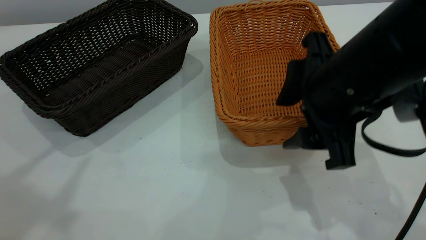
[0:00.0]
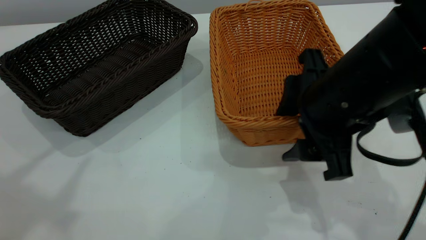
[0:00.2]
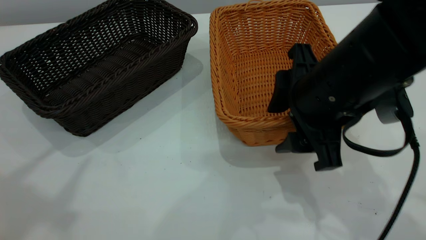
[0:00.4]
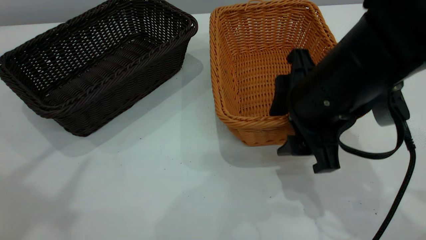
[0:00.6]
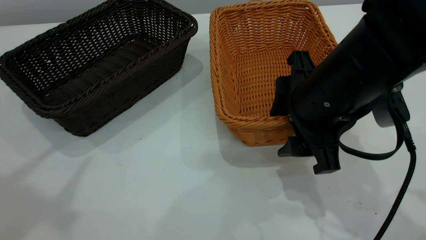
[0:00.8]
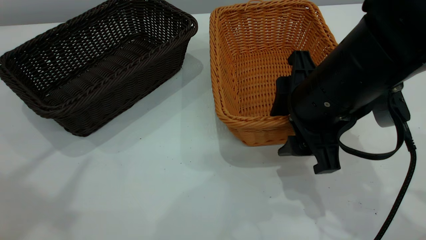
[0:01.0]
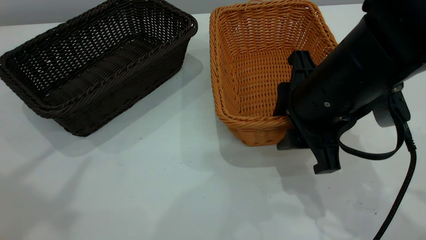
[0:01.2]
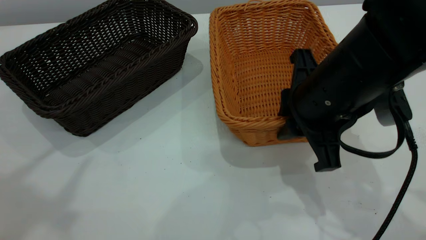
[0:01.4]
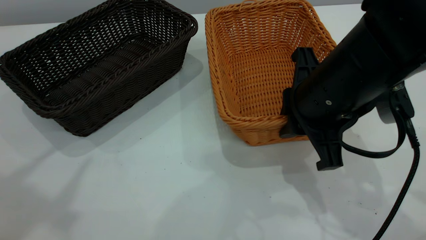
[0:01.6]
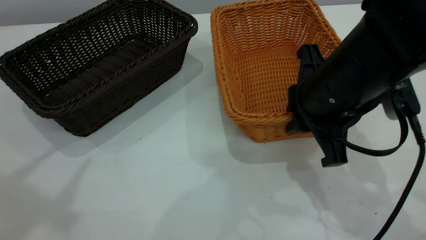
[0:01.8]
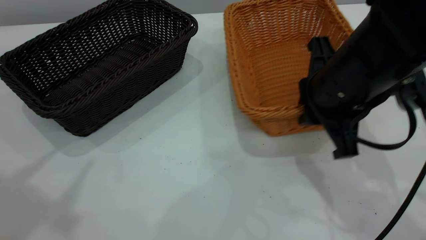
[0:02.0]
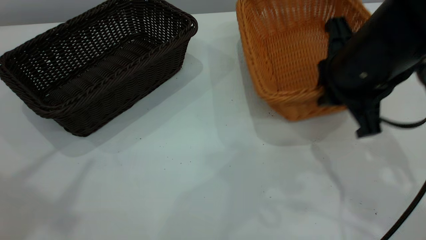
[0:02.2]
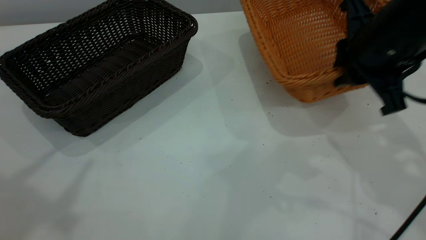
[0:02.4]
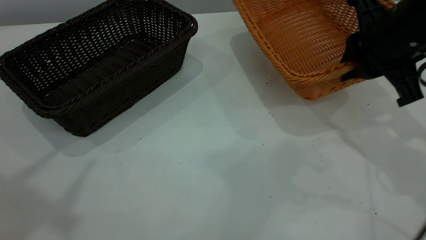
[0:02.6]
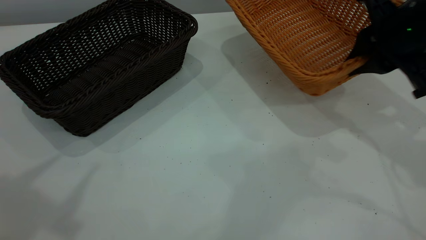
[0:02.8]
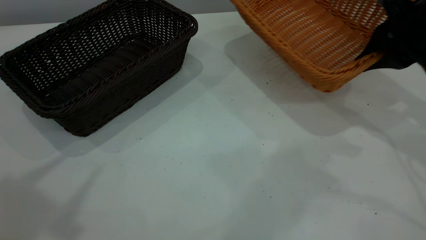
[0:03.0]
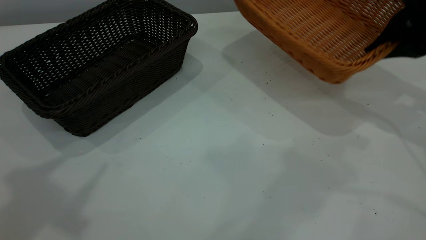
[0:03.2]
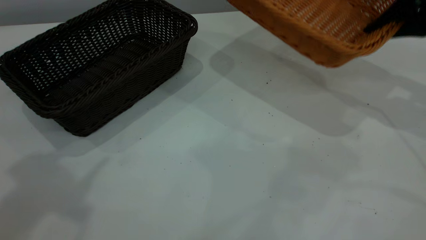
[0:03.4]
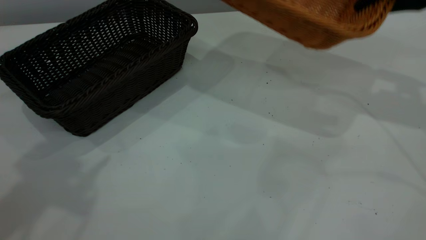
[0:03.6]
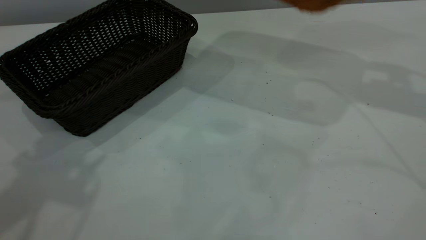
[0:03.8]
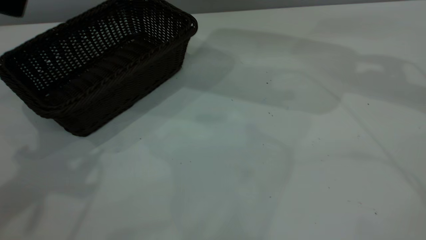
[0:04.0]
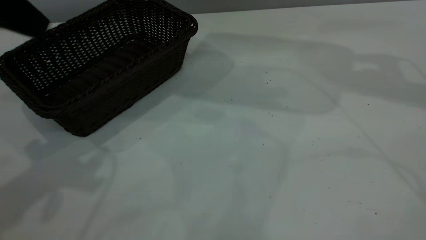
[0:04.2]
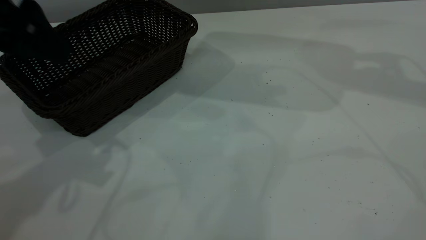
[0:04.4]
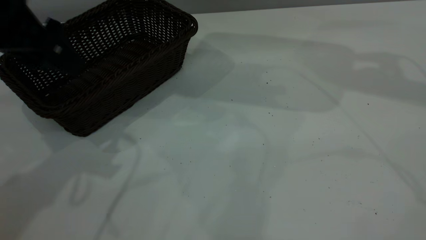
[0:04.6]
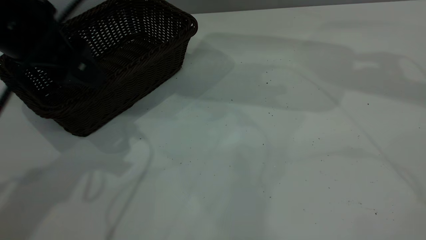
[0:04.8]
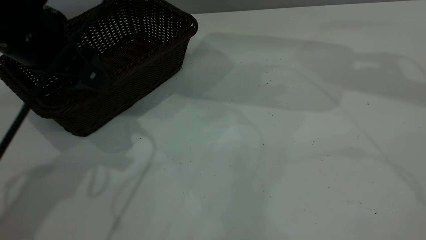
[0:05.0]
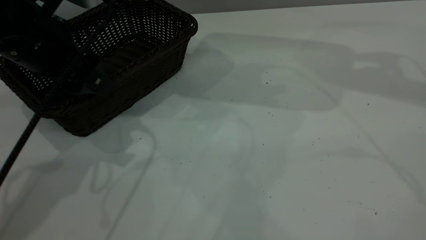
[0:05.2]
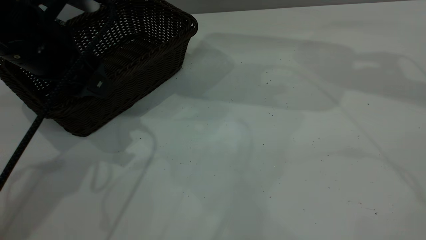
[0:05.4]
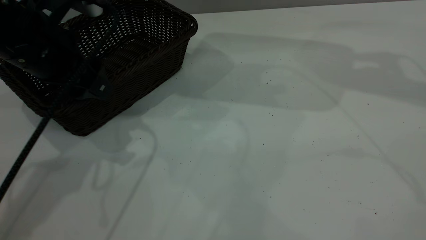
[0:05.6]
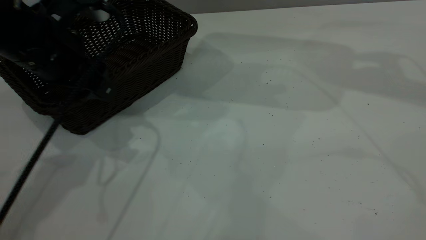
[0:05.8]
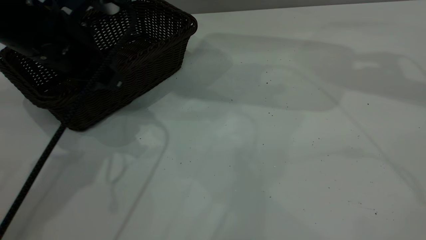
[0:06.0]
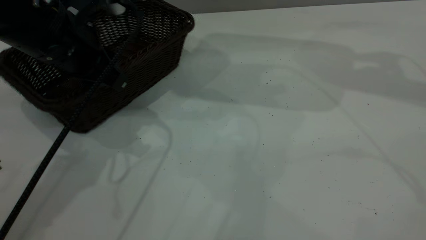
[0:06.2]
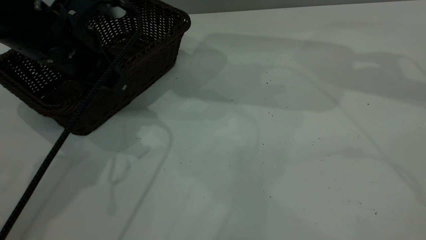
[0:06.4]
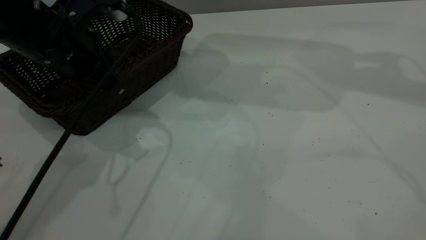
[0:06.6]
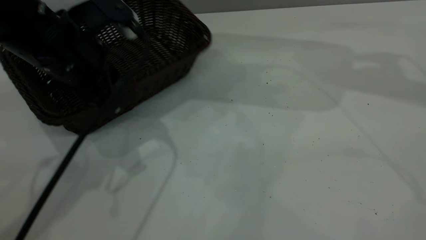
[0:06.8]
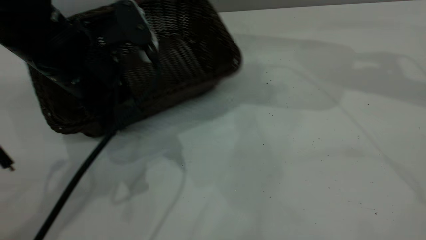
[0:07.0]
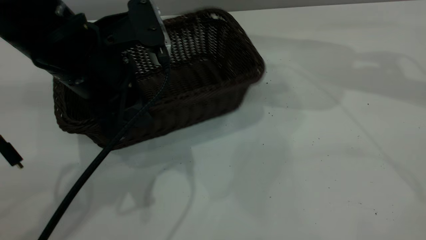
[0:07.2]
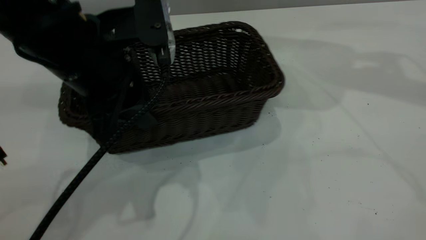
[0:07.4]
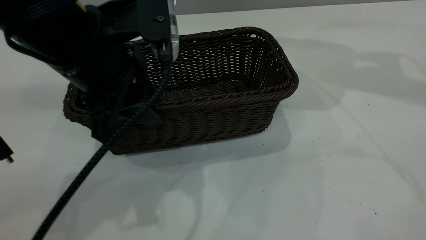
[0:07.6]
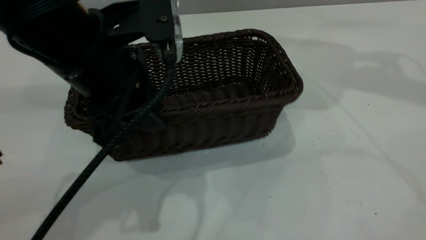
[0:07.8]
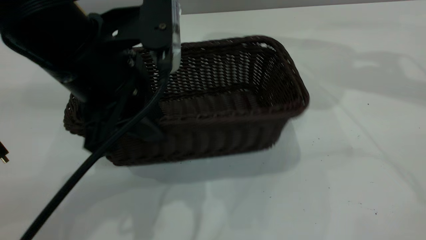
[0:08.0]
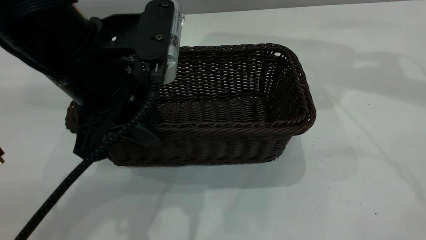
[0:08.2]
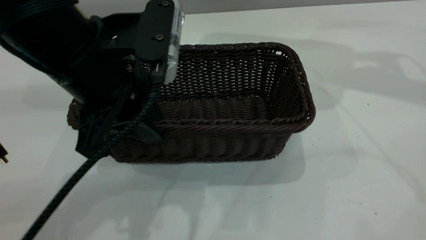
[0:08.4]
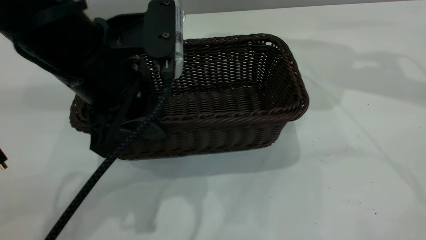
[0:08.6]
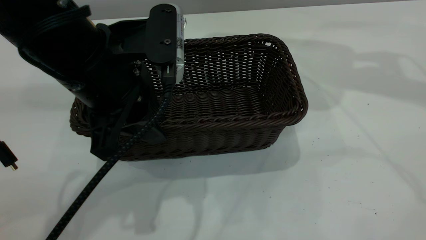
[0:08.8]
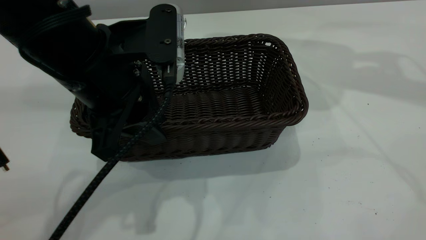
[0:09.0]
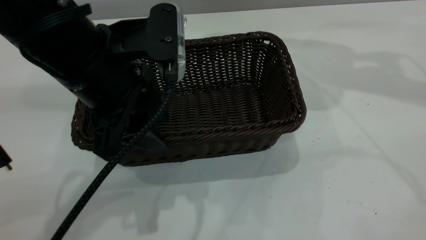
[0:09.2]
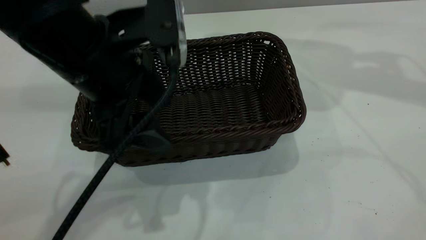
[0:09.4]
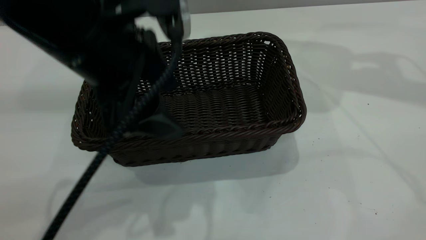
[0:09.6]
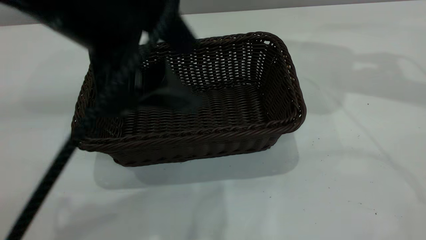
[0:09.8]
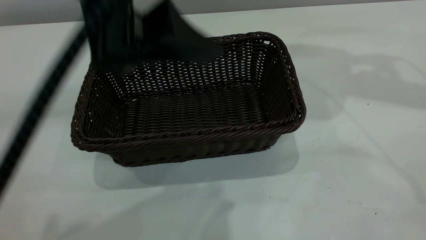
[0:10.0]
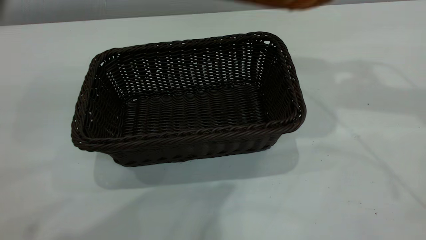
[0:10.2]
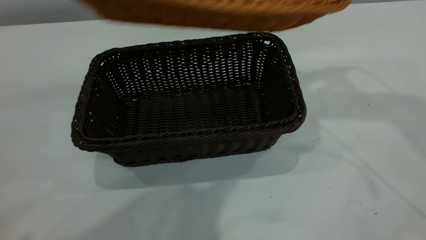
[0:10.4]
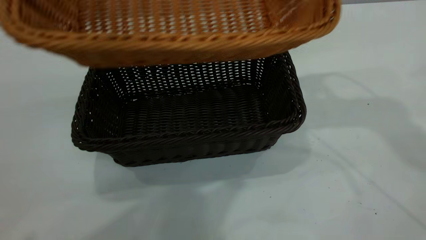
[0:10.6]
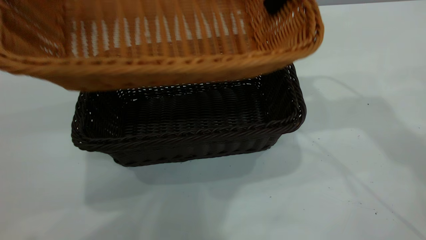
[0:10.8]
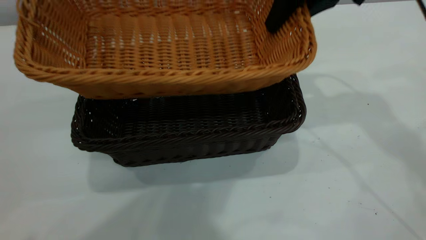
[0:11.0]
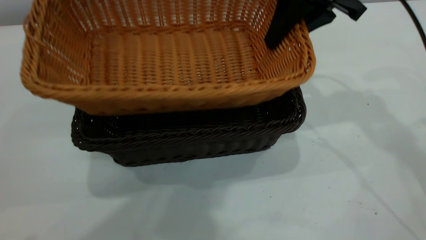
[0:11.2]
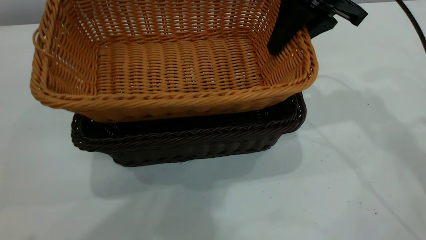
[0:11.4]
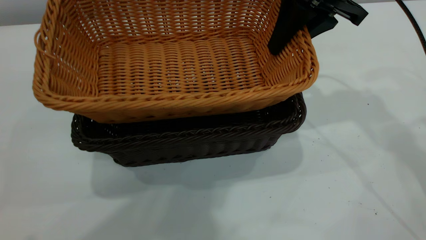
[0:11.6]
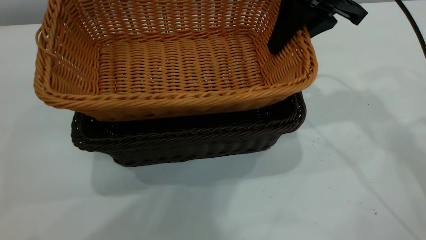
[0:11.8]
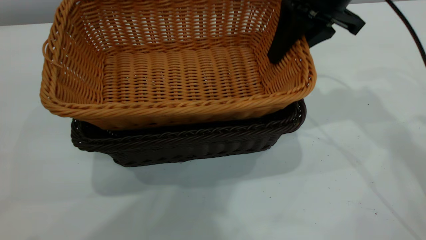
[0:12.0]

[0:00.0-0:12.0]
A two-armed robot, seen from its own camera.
Task of the whole recording: the left gripper grasp the black basket and place it in the center of the table, the right gripper grasp the brown basket and place it inside the black one.
Step, 0:00.0 to 0:03.0: Pick up the light basket with the right gripper.
Step, 0:03.2 to 0:10.0: Move the dark basket to the center of view.
0:00.0 to 0:01.6: The right gripper closes.
0:01.6 to 0:03.0: The right gripper is displaced to the right and forward by roughly 15 cm.
0:03.0 to 0:04.4: The right gripper moves upward and forward, some 15 cm; the left gripper is displaced downward and forward by some 20 cm.
0:04.4 to 0:06.0: The left gripper travels downward by approximately 10 cm, and closes.
0:06.0 to 0:07.6: The left gripper shifts roughly 10 cm to the right and backward.
0:07.6 to 0:09.0: The grippers make only small movements.
0:09.0 to 0:10.4: The right gripper goes about 10 cm to the left; the left gripper shifts some 20 cm upward, and opens its fingers.
0:10.4 to 0:12.0: The right gripper heads downward, covering some 10 cm.

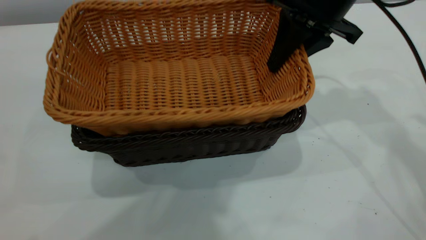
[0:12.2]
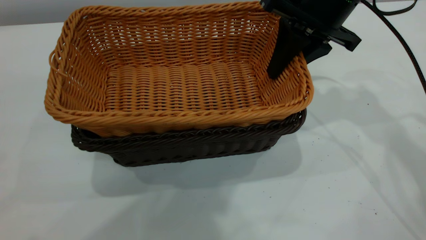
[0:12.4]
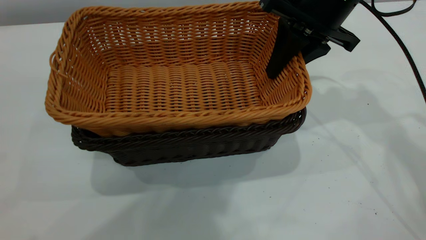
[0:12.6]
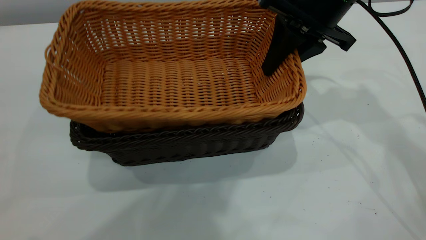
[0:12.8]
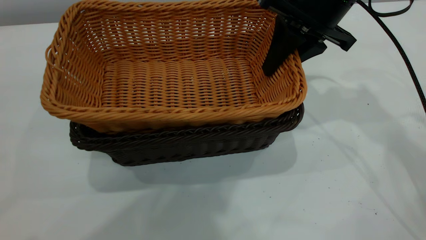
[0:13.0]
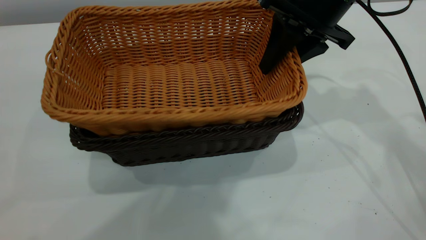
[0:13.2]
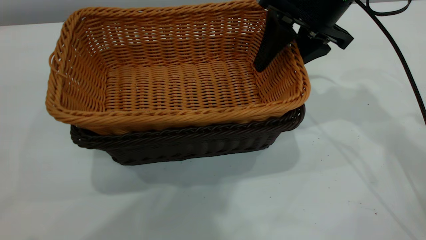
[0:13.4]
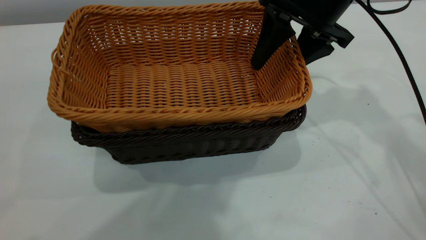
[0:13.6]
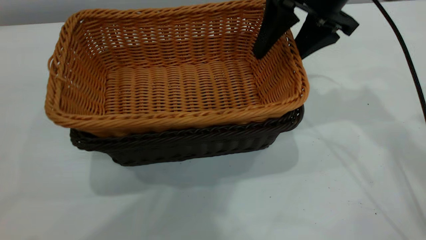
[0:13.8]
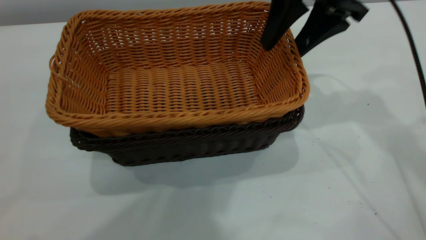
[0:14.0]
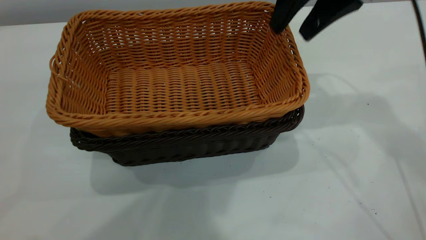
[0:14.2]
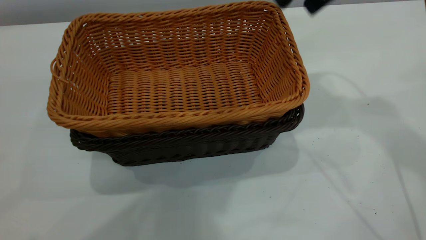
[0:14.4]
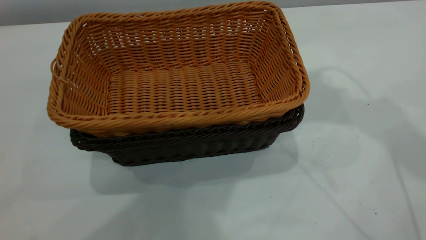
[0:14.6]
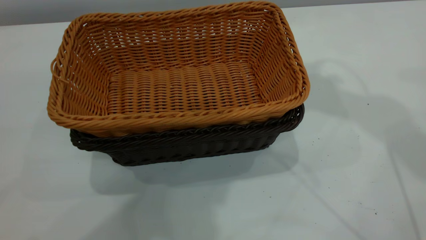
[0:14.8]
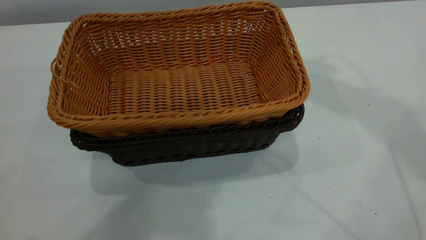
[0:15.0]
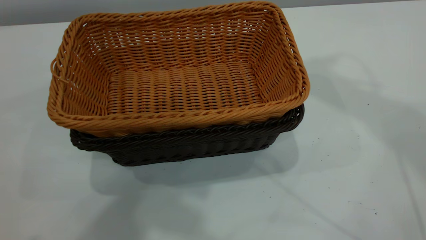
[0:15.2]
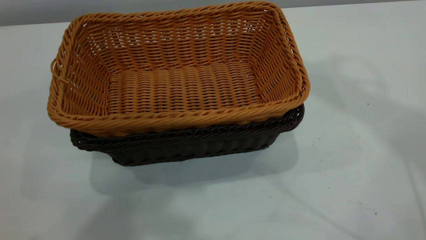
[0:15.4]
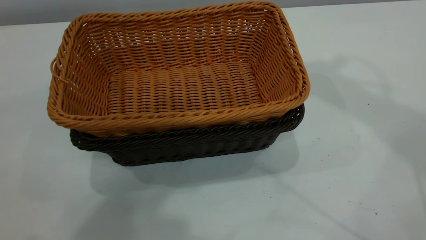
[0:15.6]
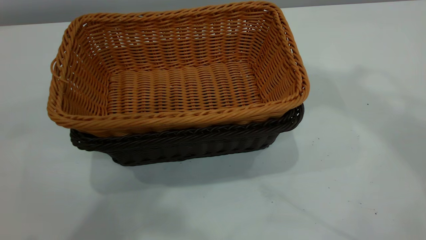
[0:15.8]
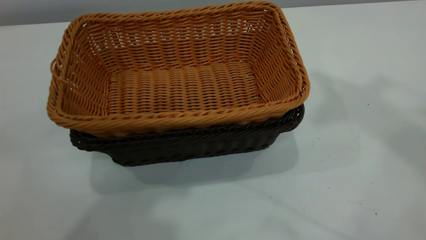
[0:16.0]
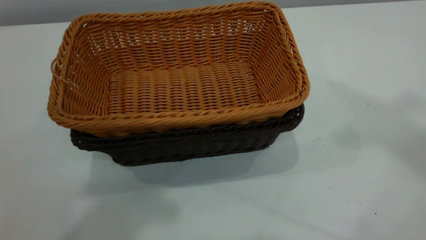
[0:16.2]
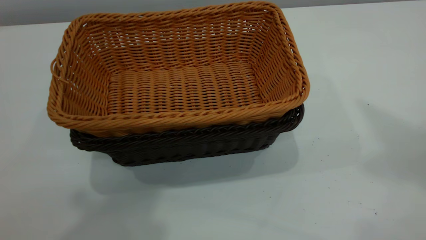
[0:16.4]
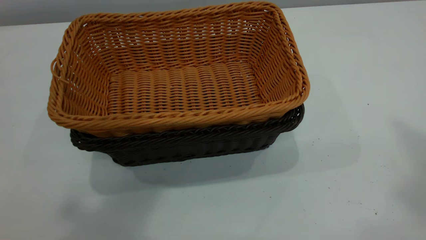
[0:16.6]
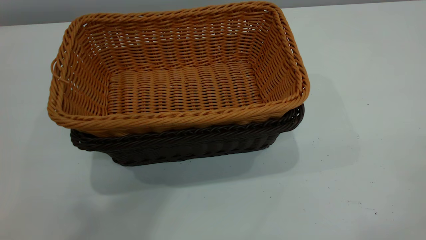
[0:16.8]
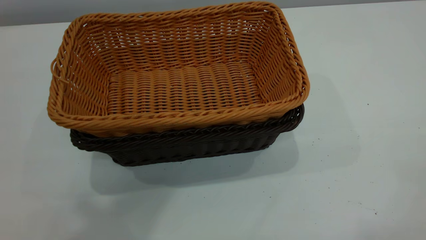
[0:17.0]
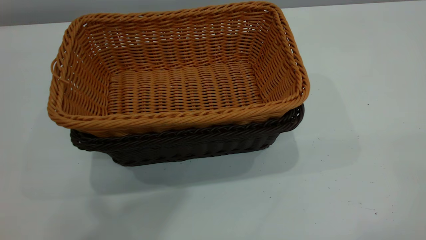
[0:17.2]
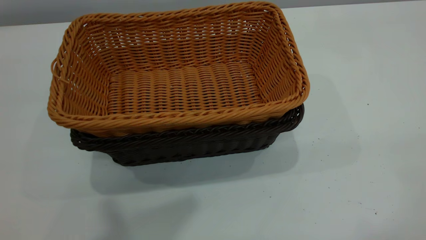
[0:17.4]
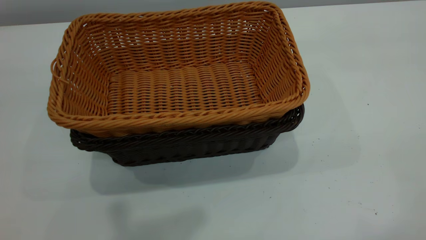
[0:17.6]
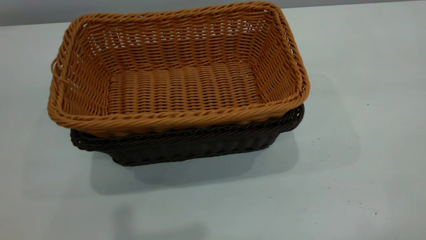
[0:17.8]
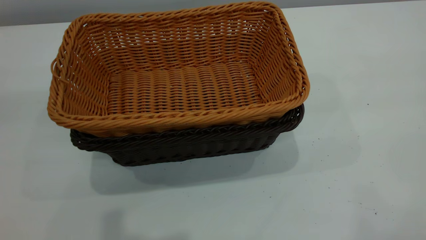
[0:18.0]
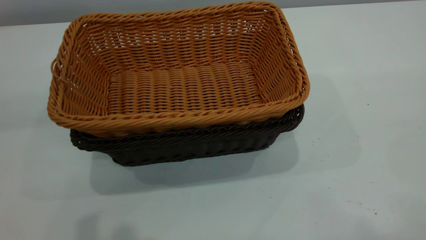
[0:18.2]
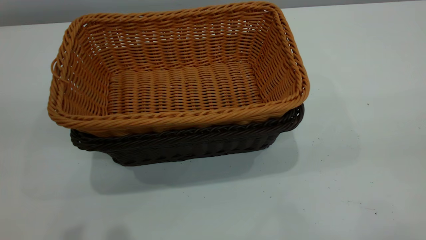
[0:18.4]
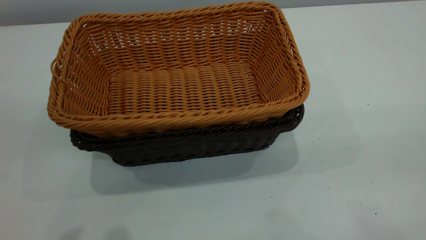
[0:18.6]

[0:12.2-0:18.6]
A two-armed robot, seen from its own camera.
Task of the whole recording: the left gripper grasp the black basket and place it in the center of the table, the right gripper grasp the brown basket and place it inside the black one.
Step, 0:12.2 to 0:14.2: Place the light basket on the dark basket.
0:12.2 to 0:13.8: The right gripper opens its fingers.
0:13.8 to 0:15.4: The left gripper moves some 5 cm, and closes its fingers, while the right gripper goes some 35 cm upward, and closes up.
